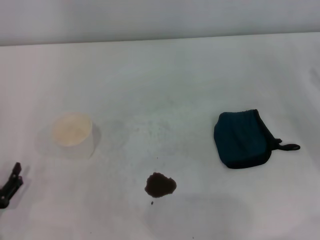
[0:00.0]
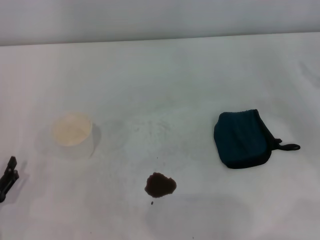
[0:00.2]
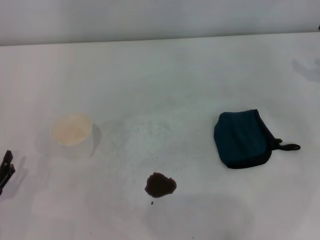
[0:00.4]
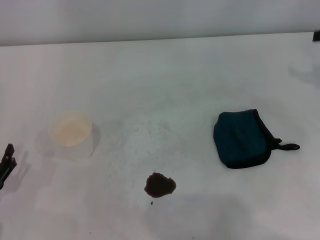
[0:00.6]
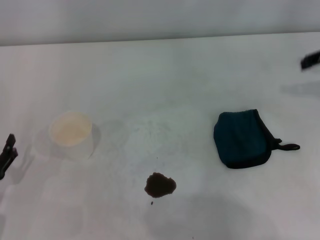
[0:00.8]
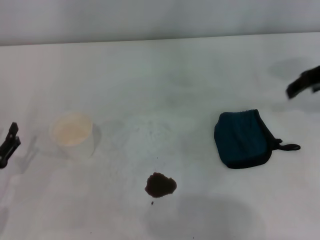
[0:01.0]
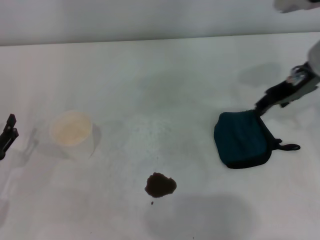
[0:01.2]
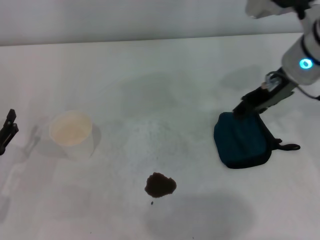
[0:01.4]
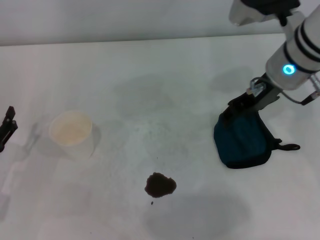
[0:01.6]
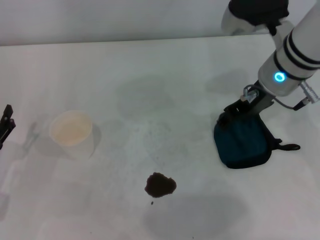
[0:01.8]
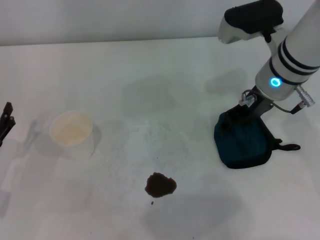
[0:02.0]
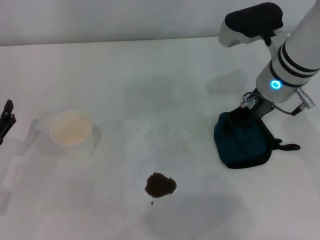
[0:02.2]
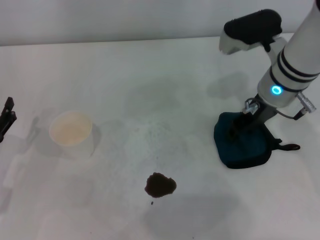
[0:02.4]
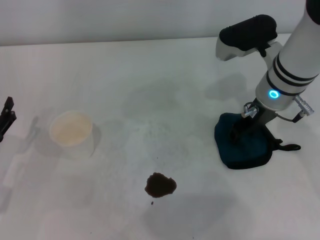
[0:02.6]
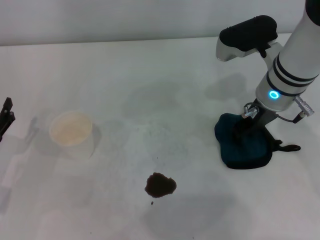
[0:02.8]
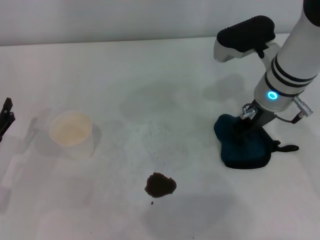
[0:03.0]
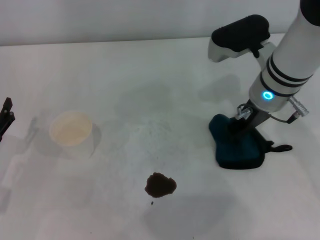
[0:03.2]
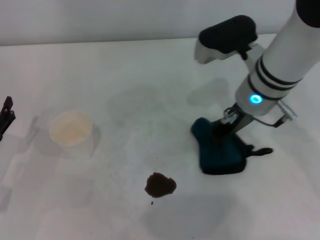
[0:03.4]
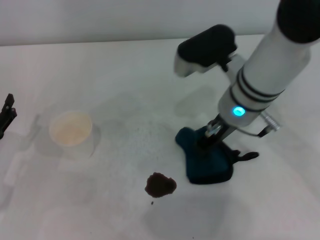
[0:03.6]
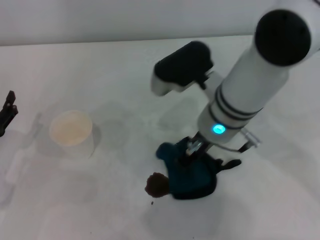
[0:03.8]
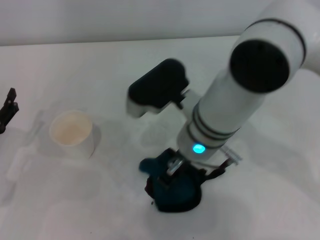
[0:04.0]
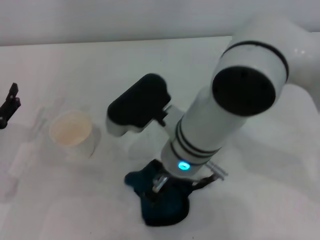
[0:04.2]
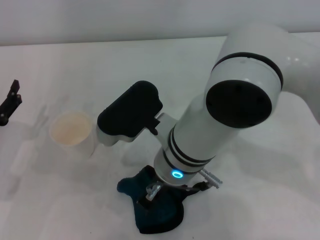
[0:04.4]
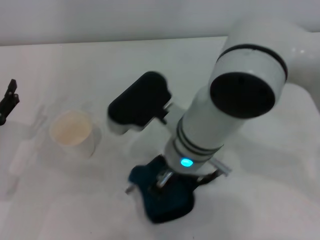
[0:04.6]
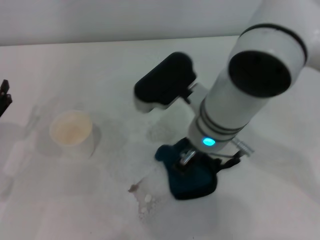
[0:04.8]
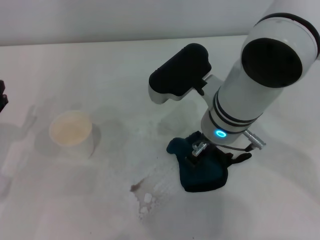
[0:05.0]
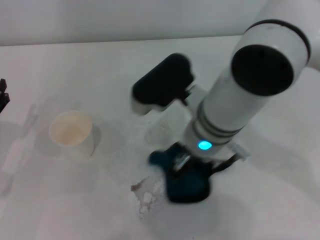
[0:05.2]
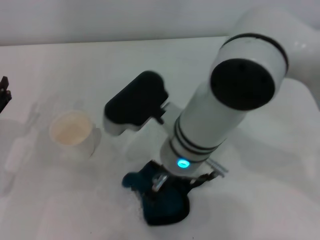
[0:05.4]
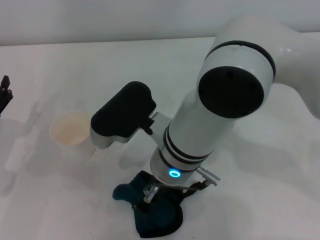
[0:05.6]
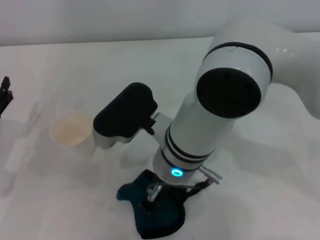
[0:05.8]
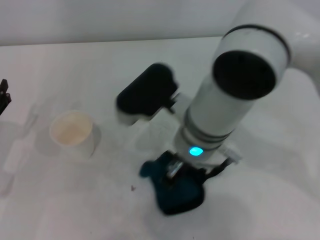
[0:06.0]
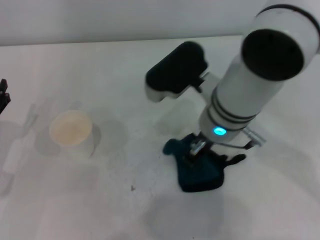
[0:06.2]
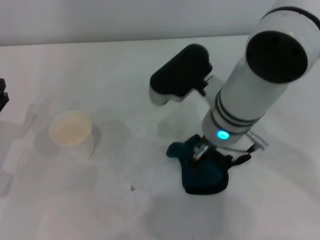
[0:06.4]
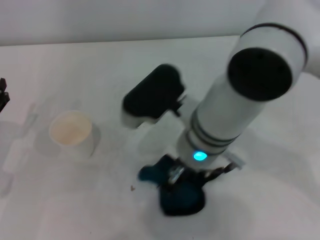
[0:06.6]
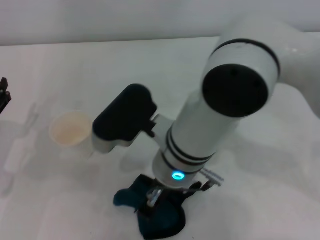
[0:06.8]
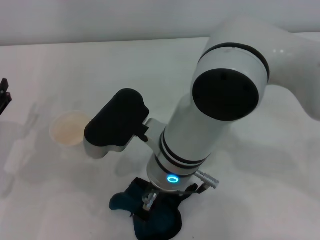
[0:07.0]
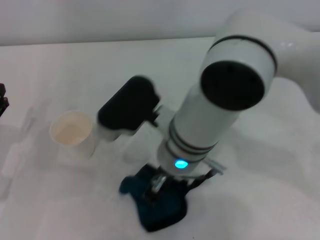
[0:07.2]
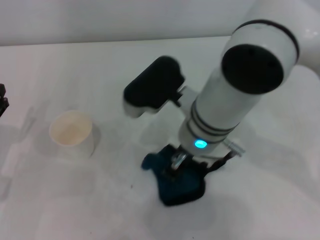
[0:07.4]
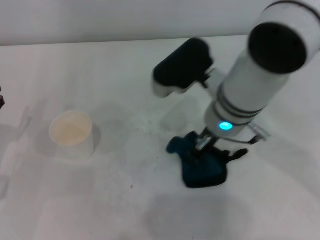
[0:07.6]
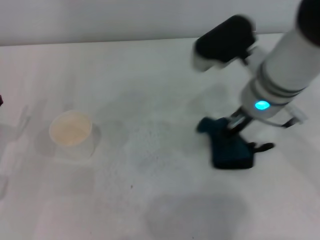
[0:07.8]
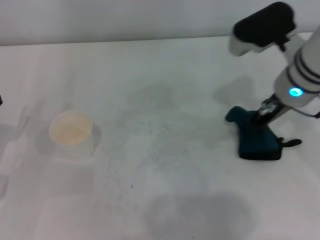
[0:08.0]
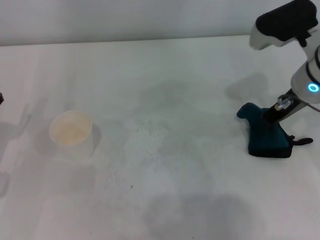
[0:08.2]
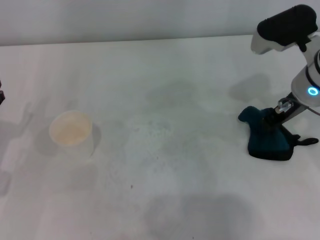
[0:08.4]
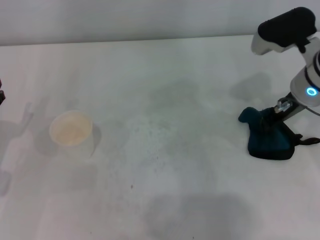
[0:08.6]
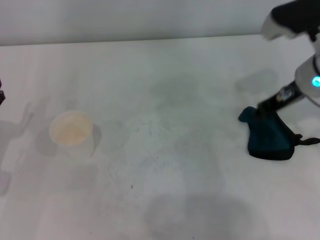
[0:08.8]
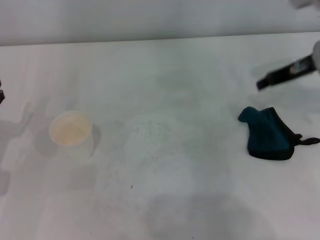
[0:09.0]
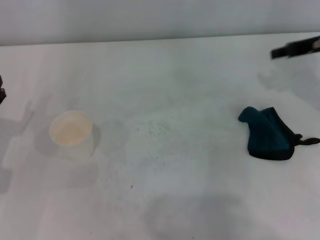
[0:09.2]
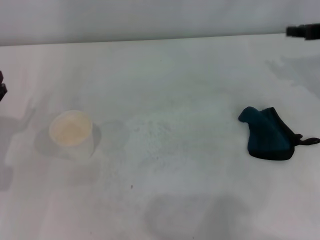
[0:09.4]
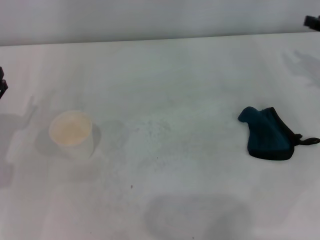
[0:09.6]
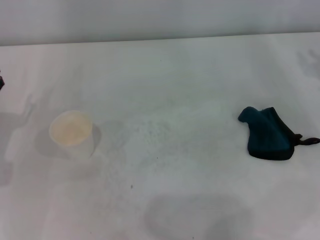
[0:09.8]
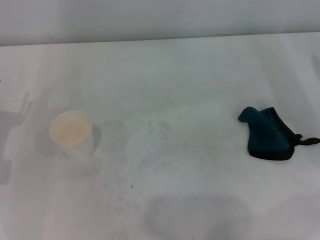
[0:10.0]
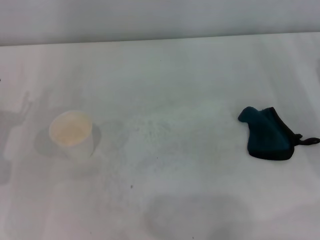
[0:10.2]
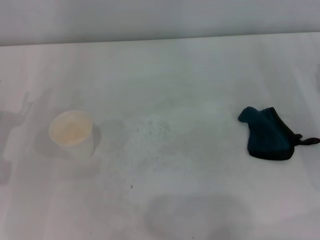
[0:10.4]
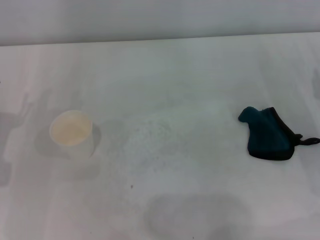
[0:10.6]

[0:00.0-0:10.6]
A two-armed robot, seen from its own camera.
Step, 0:00.0 to 0:02.8: Grasp the rag with the right gripper.
Step, 0:03.2 to 0:07.6: Wipe the stains off the table with the right gripper.
Step, 0:07.8 to 0:08.4: Place the rag on the table with the right gripper.
0:00.0 to 0:01.6: The left gripper heads forward, covering approximately 5 cm. Meanwhile the right gripper heads to the left and upward, covering roughly 25 cm.
0:01.6 to 0:03.0: The right gripper ends up about 5 cm from where it was.
0:03.0 to 0:04.6: The right gripper is displaced to the left and backward by approximately 15 cm, and closes up.
0:04.6 to 0:06.0: There are only small adjustments of the grippers.
0:06.0 to 0:07.6: The right gripper goes left and right, approximately 10 cm each way, reversing 2 times.
0:07.6 to 0:09.0: The right gripper shifts some 20 cm to the right, and opens its fingers.
0:09.0 to 0:10.6: The right gripper is displaced downward, backward and to the right by some 20 cm.

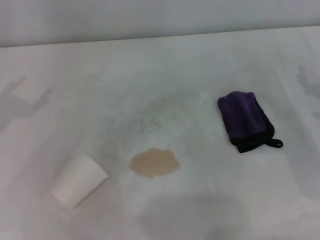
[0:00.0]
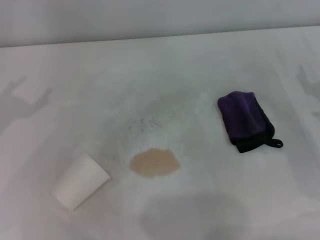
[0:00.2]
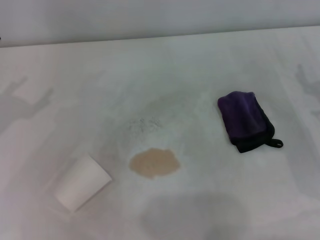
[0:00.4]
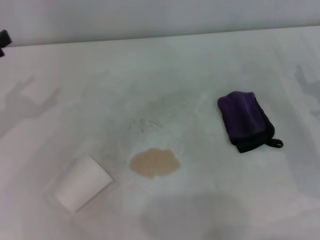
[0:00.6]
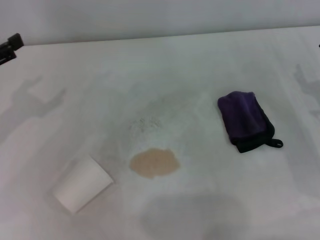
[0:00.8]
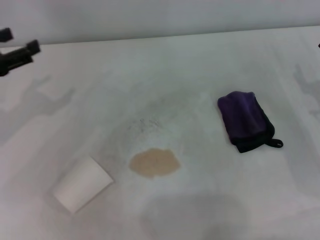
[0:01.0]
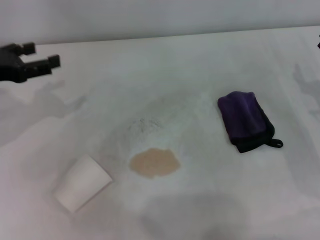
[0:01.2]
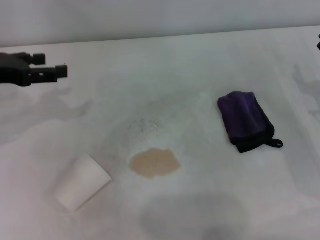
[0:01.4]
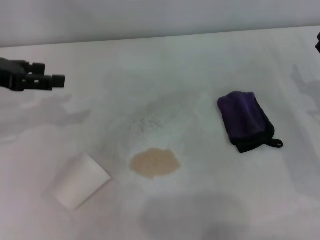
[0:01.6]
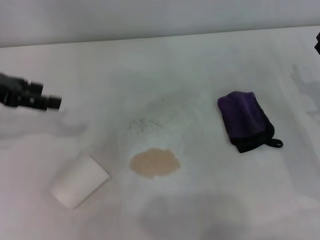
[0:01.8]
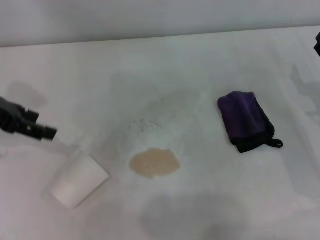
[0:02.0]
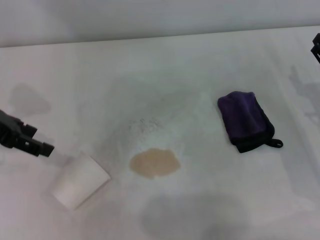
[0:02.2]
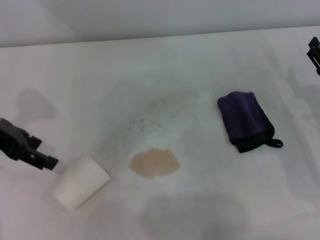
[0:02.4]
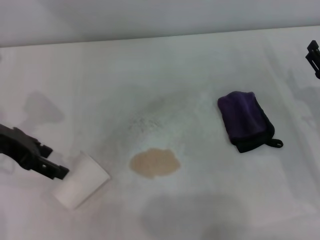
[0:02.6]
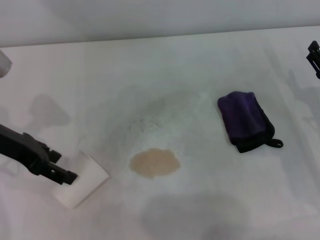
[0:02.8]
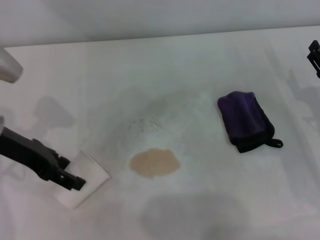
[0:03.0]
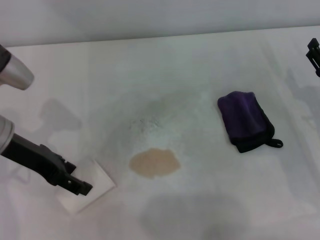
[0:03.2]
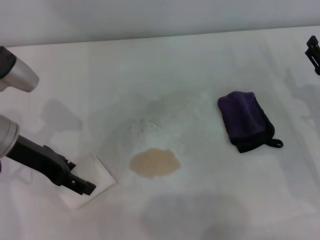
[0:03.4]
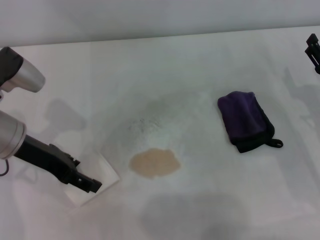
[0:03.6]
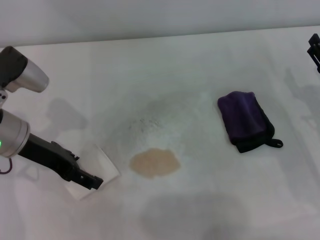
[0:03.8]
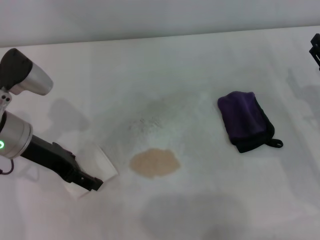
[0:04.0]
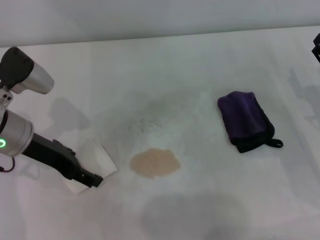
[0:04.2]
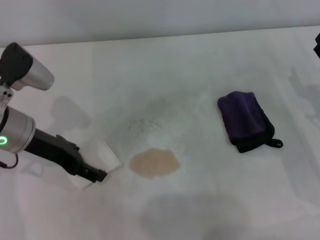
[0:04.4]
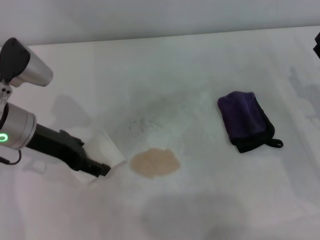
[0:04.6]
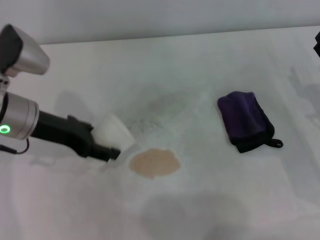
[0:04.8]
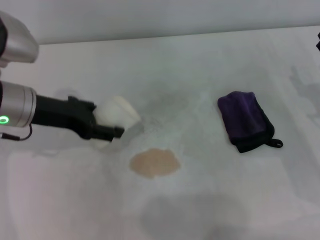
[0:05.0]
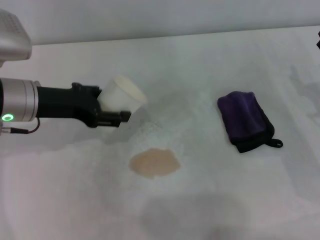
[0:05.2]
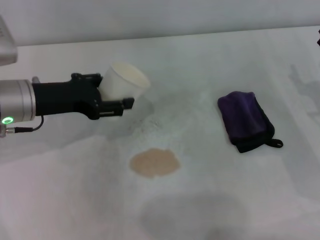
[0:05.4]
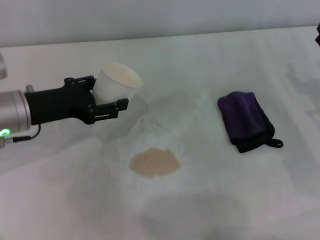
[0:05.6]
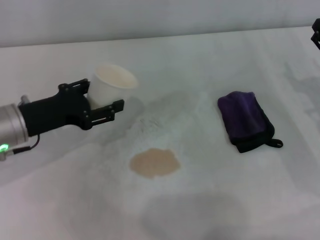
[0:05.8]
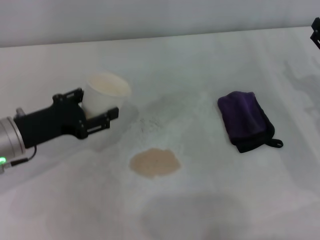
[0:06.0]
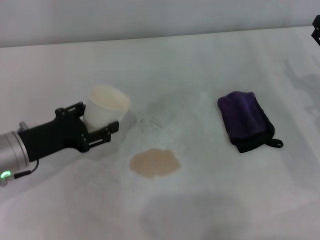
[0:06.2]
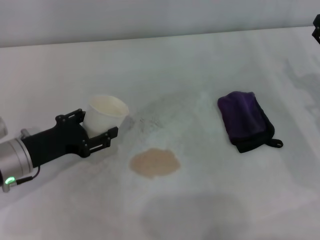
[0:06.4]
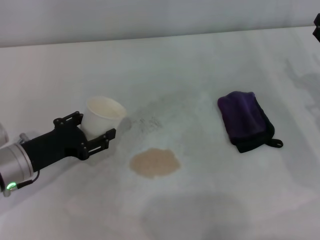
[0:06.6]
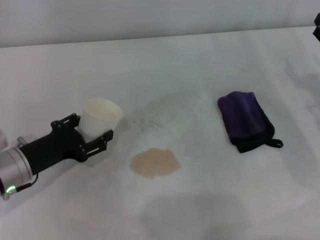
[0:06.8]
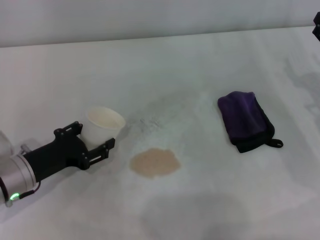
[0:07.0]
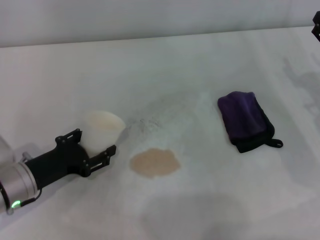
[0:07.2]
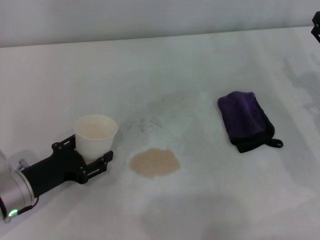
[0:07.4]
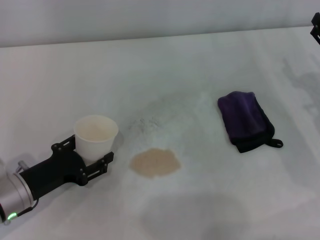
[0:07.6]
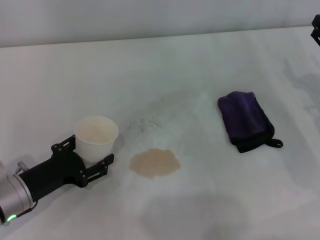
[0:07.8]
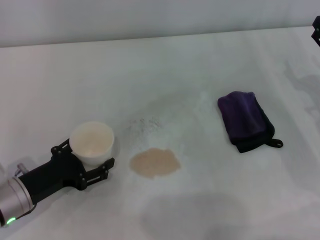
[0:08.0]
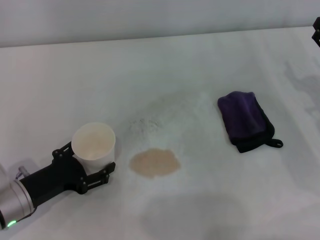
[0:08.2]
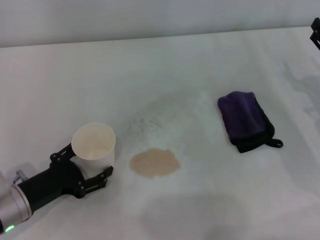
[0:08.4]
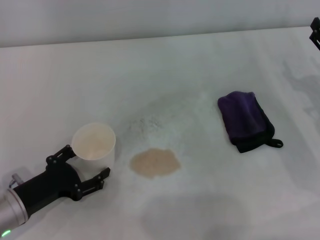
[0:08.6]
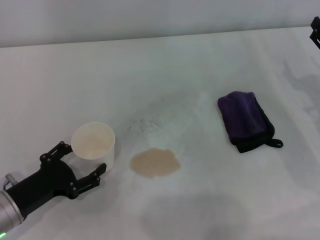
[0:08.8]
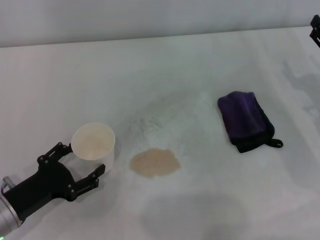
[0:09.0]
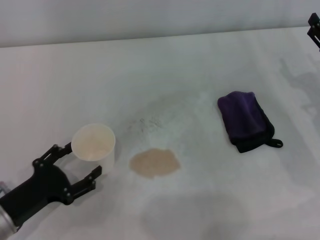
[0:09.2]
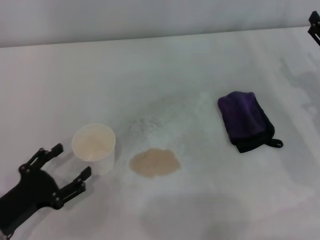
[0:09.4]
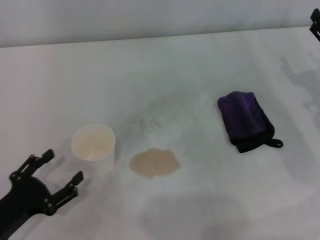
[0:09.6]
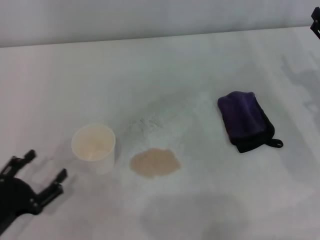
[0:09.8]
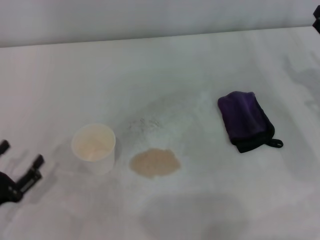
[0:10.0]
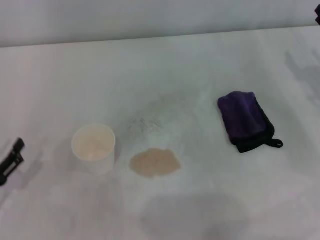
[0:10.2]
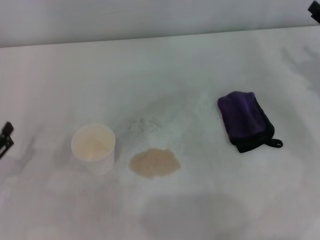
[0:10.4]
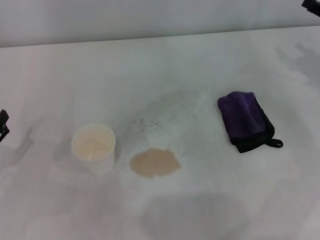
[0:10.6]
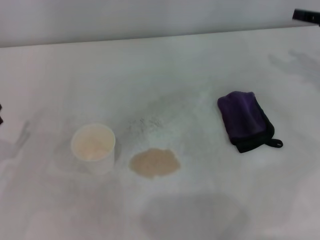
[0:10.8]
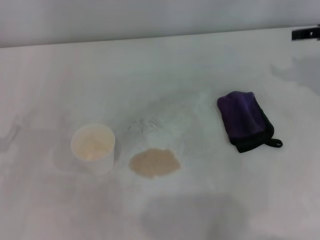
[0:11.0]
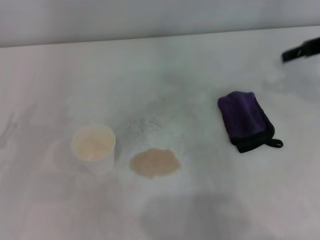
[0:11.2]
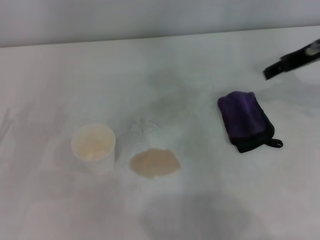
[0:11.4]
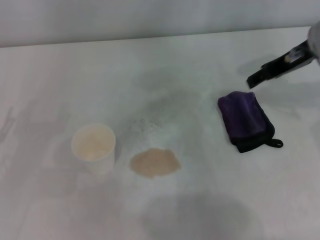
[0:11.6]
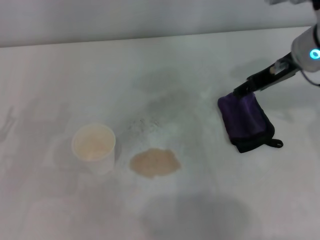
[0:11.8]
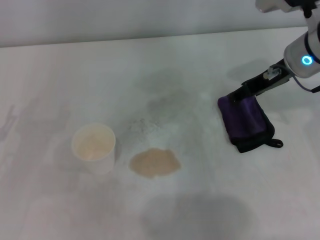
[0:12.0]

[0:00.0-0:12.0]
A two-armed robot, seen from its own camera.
Step, 0:00.0 to 0:03.2: Grasp the paper cup with the left gripper.
Step, 0:03.4 to 0:08.4: Stand the paper cup upright with the left gripper.
0:00.0 to 0:01.6: The left gripper moves forward and to the right, about 10 cm.
0:01.6 to 0:03.0: The left gripper shifts approximately 5 cm to the right.
0:03.0 to 0:04.4: The grippers make only small movements.
0:04.4 to 0:06.0: The left gripper moves some 5 cm, and closes up.
0:06.0 to 0:07.6: The left gripper moves downward and backward, some 10 cm.
0:07.6 to 0:09.0: The left gripper opens.
0:09.0 to 0:10.4: The right gripper ends up roughly 5 cm from where it was. The left gripper moves to the left, approximately 5 cm.
0:10.4 to 0:12.0: The right gripper heads to the left and upward, covering roughly 15 cm.
